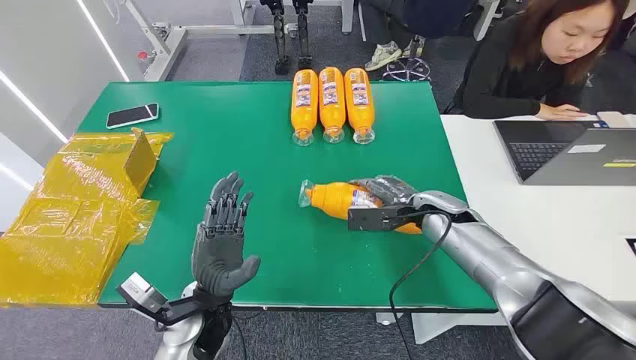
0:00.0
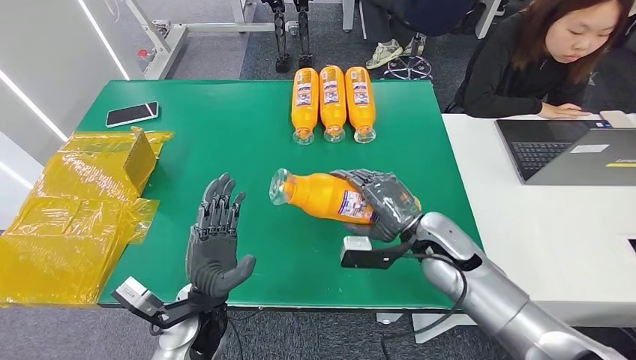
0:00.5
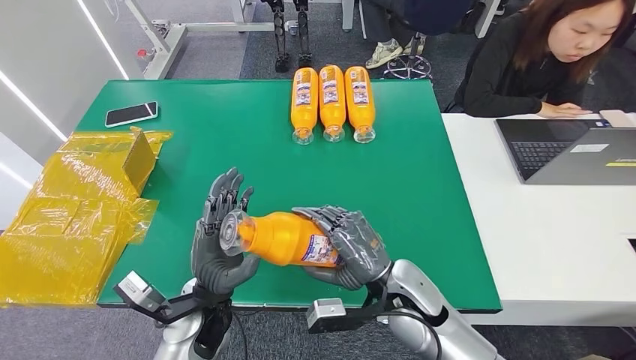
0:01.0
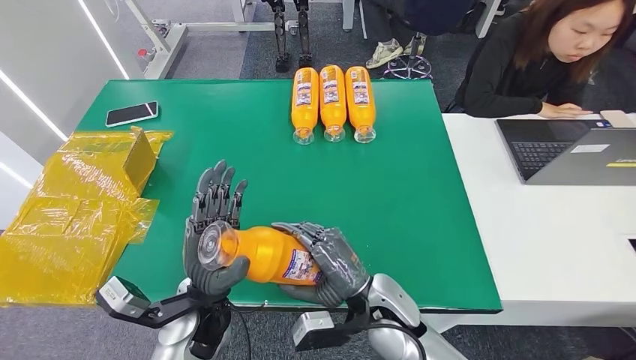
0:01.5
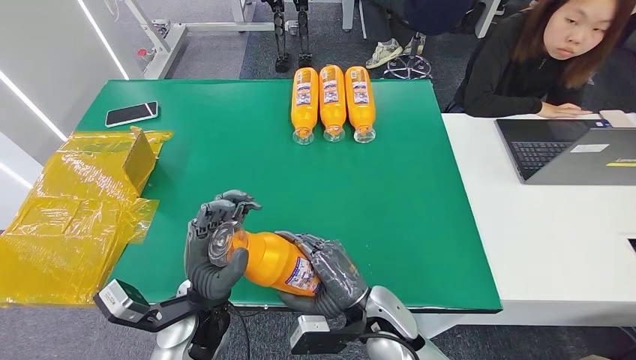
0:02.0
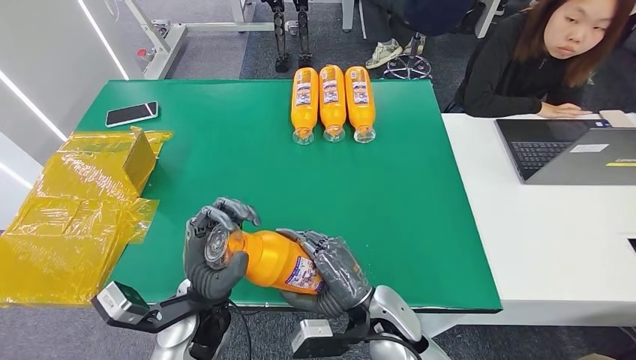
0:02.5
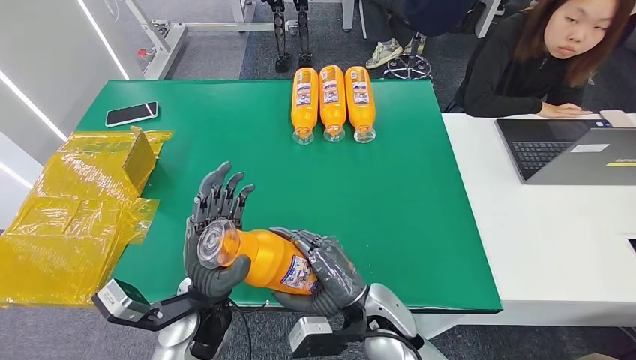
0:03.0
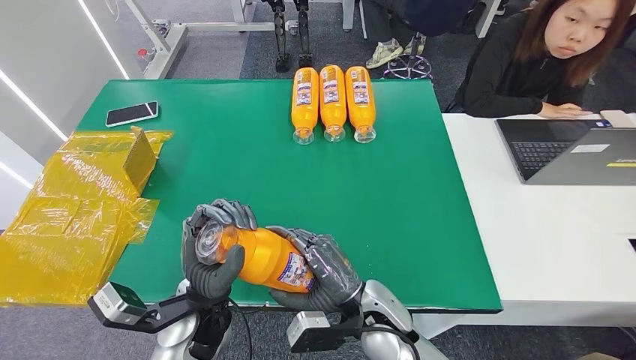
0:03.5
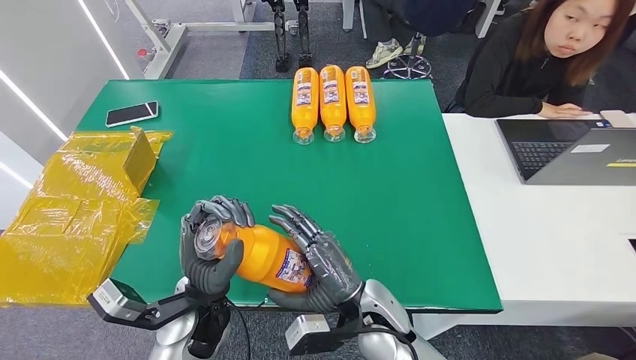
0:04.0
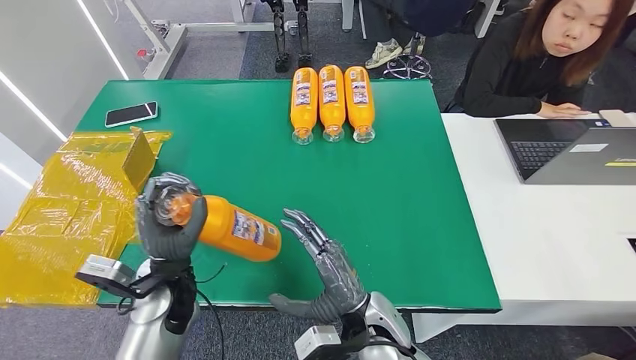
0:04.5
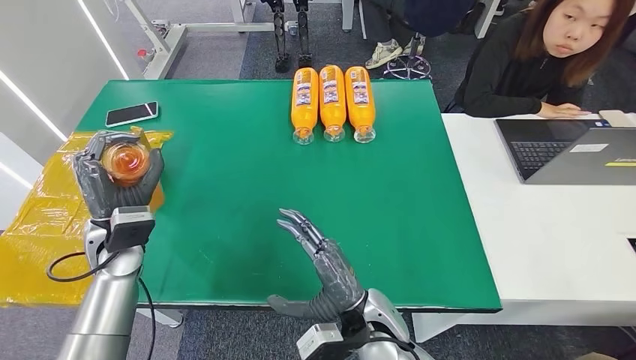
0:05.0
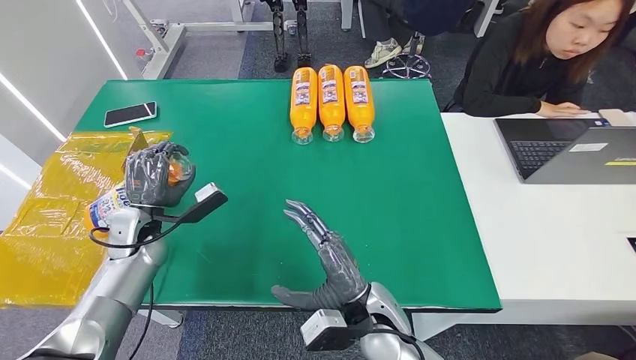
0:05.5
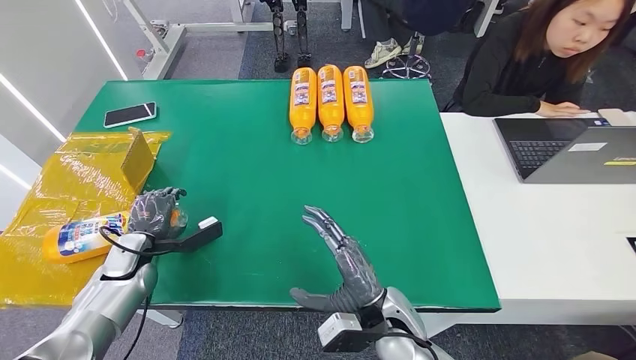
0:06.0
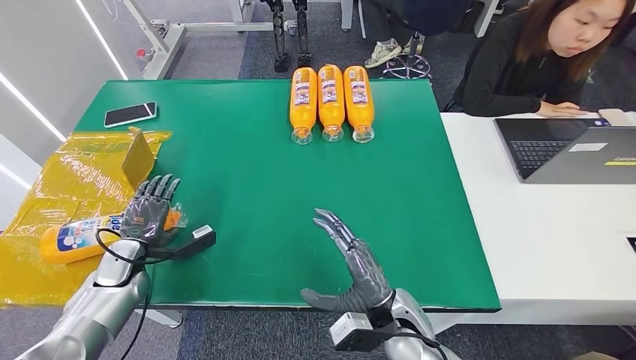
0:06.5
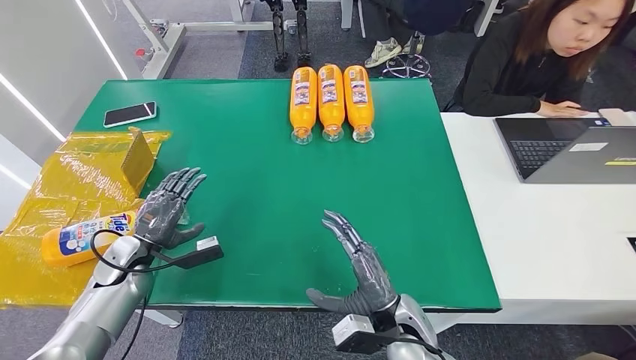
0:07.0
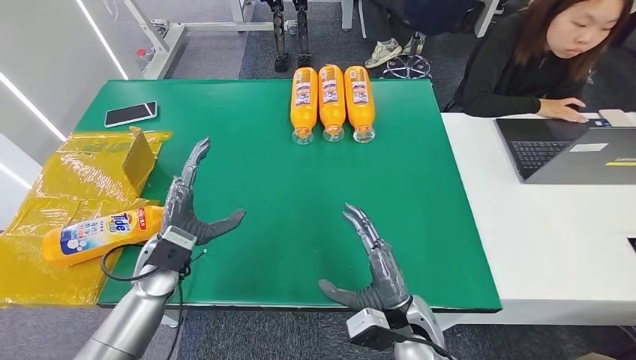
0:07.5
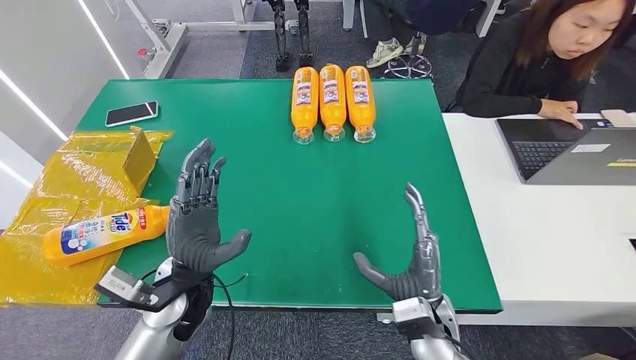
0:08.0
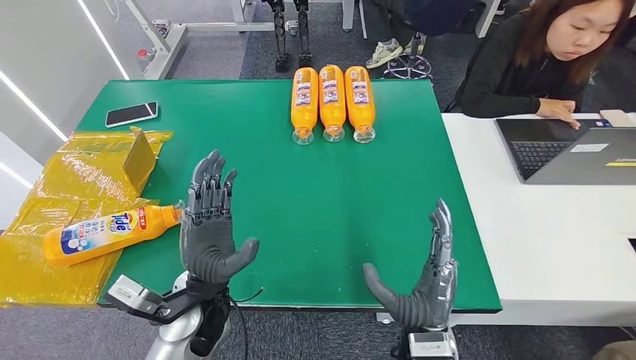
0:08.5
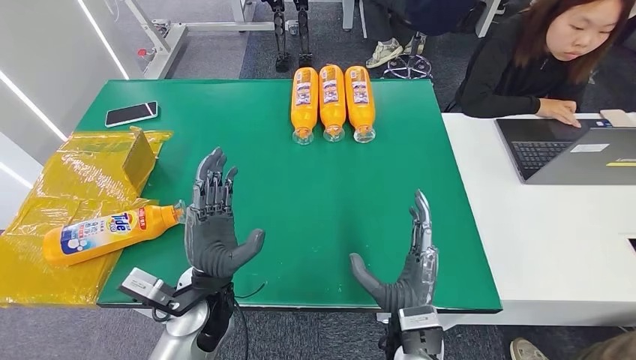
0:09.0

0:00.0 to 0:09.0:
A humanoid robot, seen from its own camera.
Step, 0:00.0 to 0:02.5: Pick up the bottle from the table.
Step, 0:03.0 to 0:09.0: Turn the bottle to the front side.
0:02.0 to 0:04.5: The left hand is displaced to the left by some 5 cm.
0:04.5 to 0:07.0: The right hand is displaced to the right by some 5 cm, while the left hand shifts roughly 20 cm to the left.
0:07.0 to 0:09.0: The left hand goes roughly 25 cm to the right.

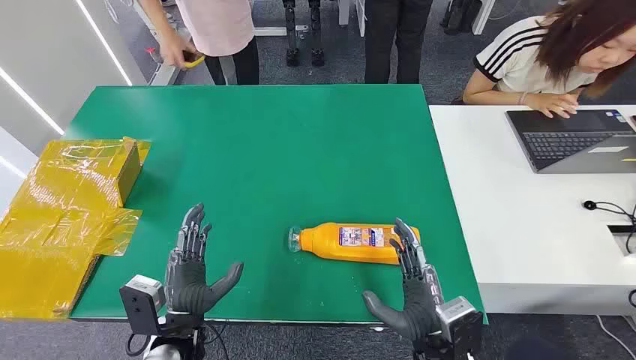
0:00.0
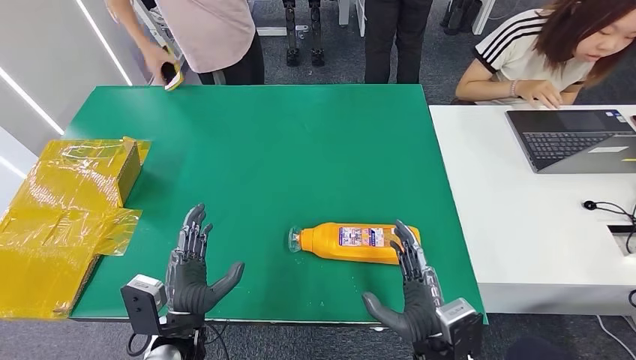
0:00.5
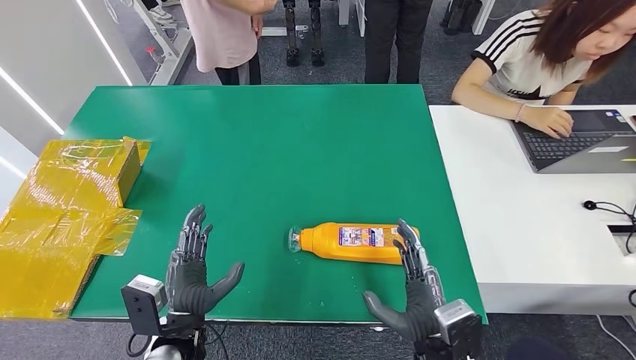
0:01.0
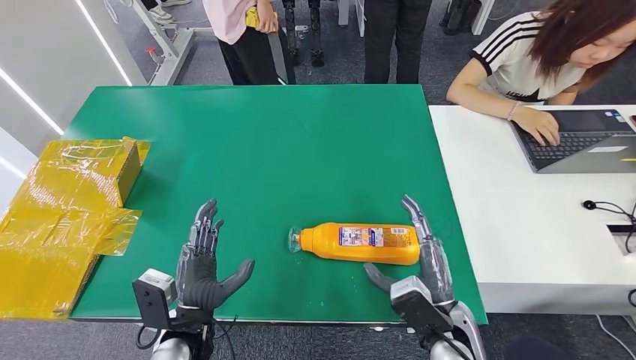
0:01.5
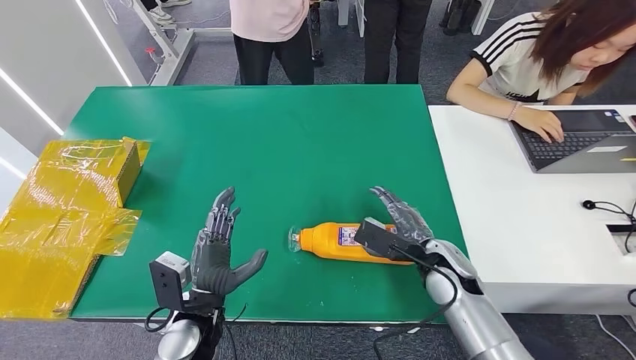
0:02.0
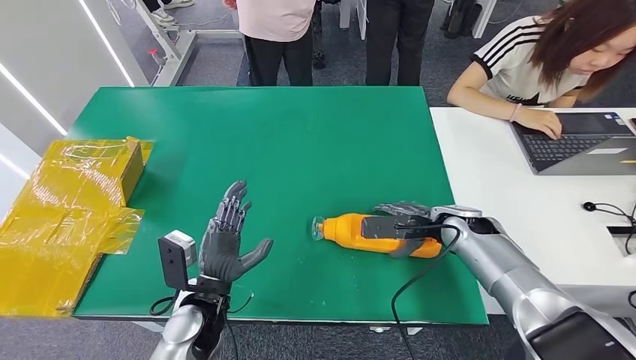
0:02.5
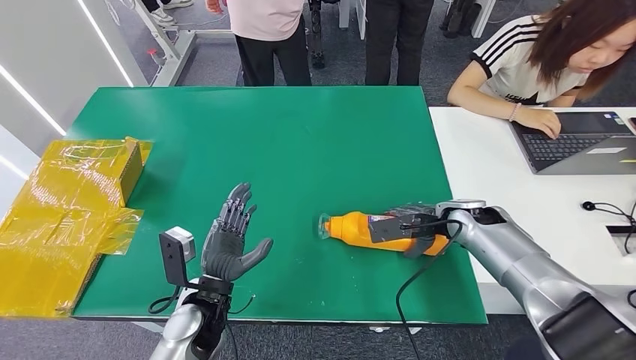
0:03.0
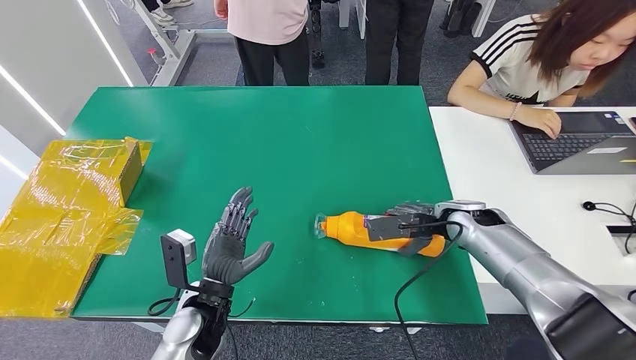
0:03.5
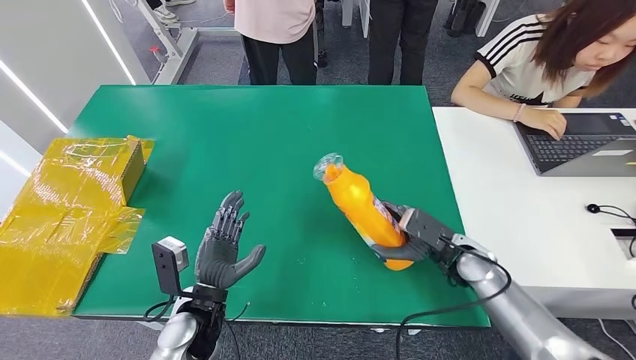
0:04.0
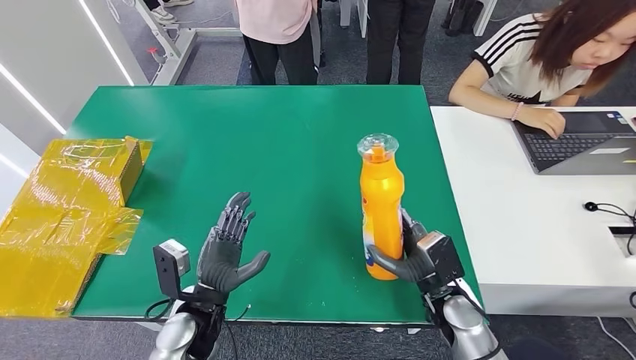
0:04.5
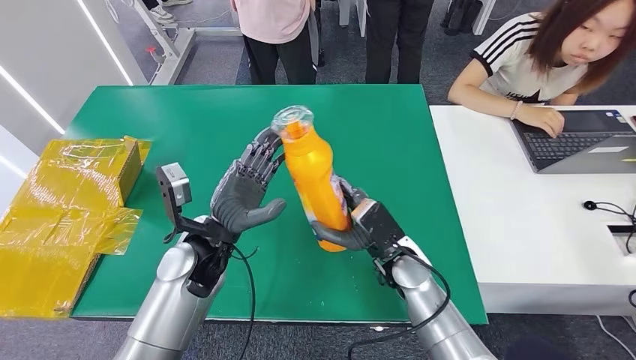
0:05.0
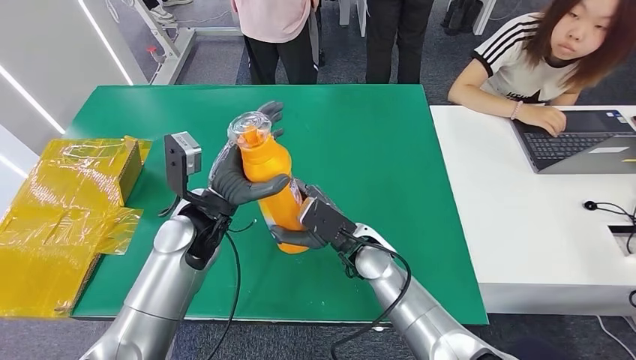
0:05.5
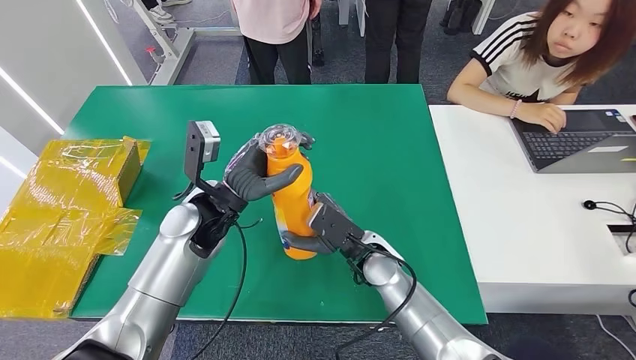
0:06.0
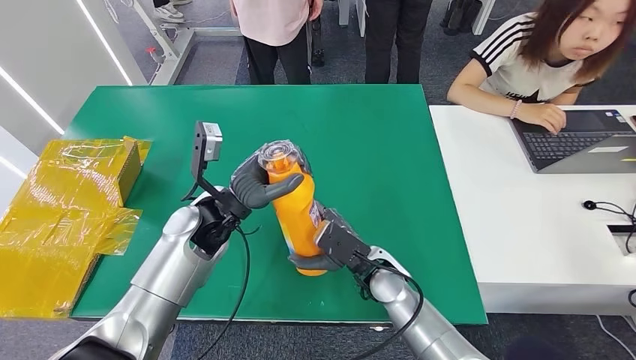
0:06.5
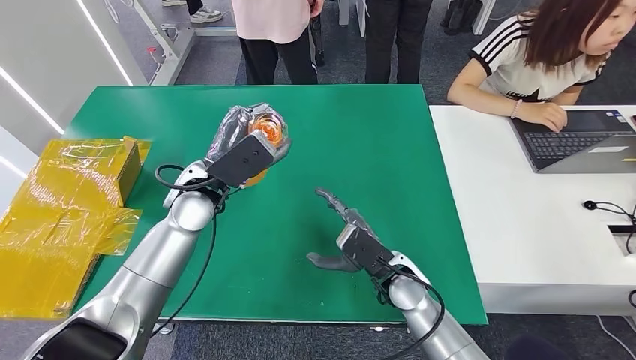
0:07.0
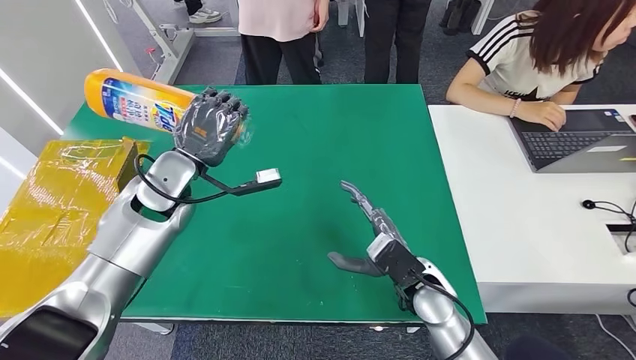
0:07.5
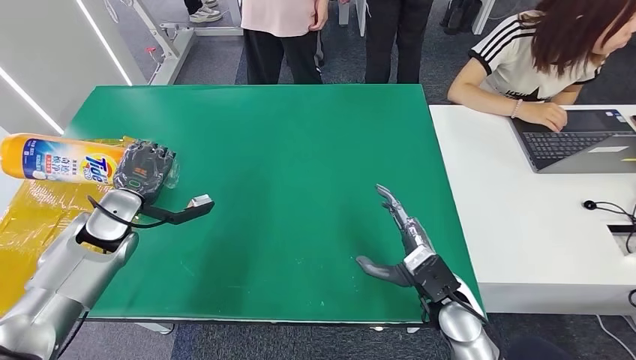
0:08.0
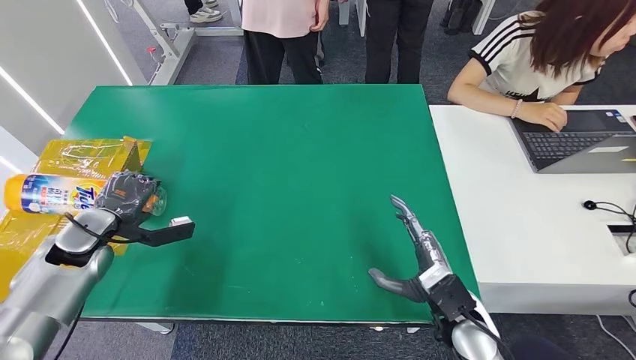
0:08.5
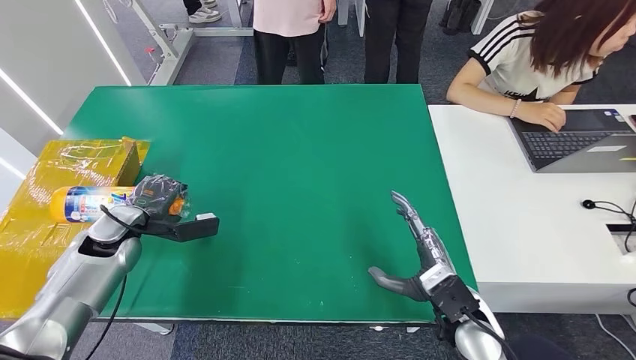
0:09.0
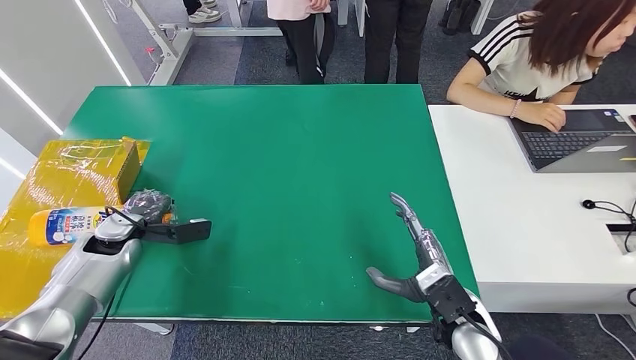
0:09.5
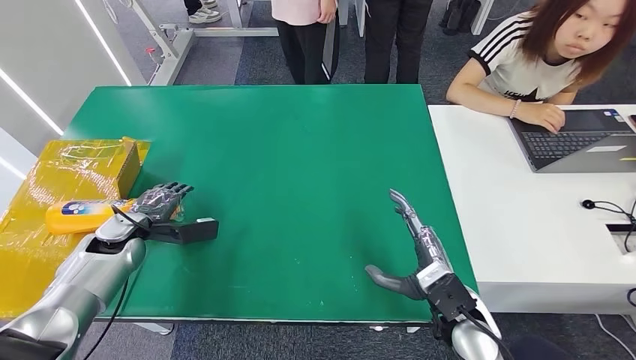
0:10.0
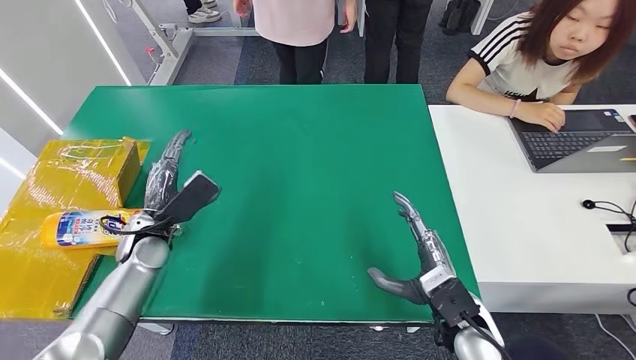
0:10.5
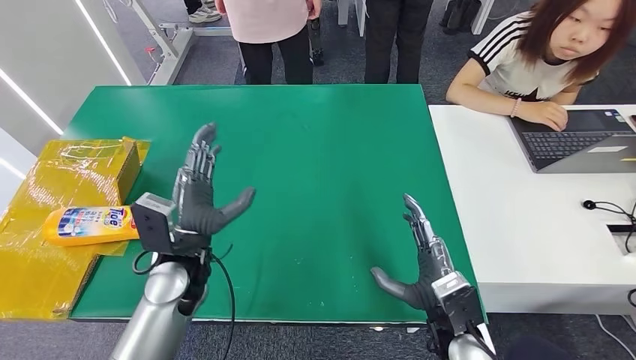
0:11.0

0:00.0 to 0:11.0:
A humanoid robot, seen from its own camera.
Step, 0:00.0 to 0:04.5: Pick up the bottle from the table.
Step, 0:05.0 to 0:11.0: Turn the bottle to the front side.
0:02.0 to 0:03.5: The right hand goes approximately 10 cm forward and to the right.
0:07.5 to 0:09.0: The right hand shifts about 5 cm to the right and backward; the left hand heads to the left and downward, covering about 20 cm.
0:09.0 to 0:11.0: The left hand is displaced to the right and backward by approximately 20 cm.
